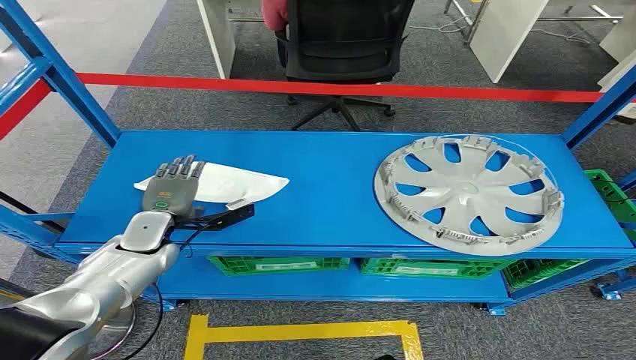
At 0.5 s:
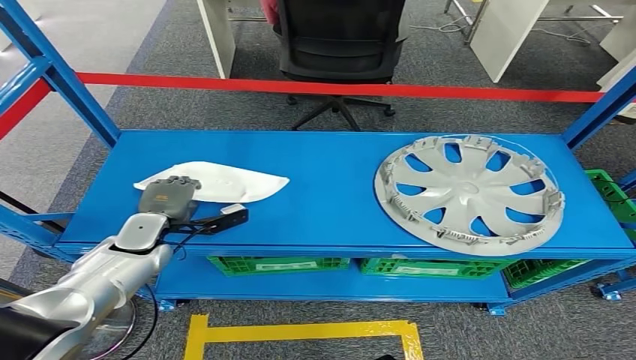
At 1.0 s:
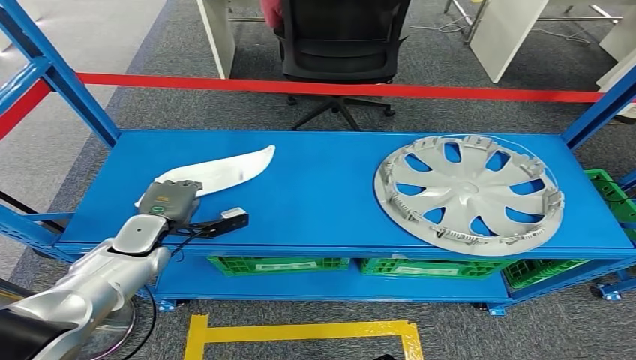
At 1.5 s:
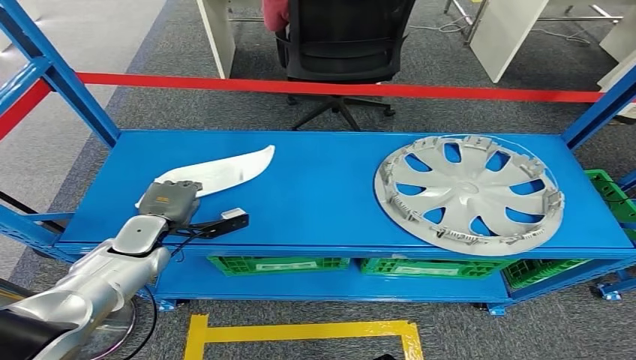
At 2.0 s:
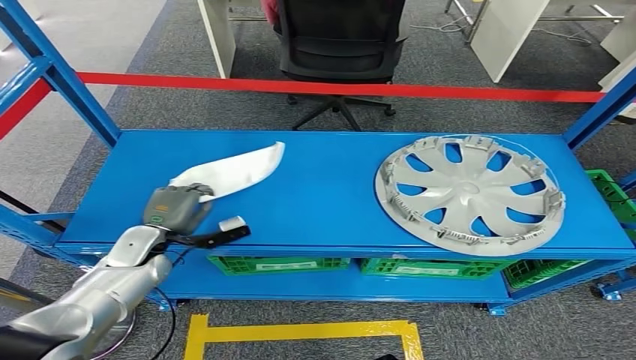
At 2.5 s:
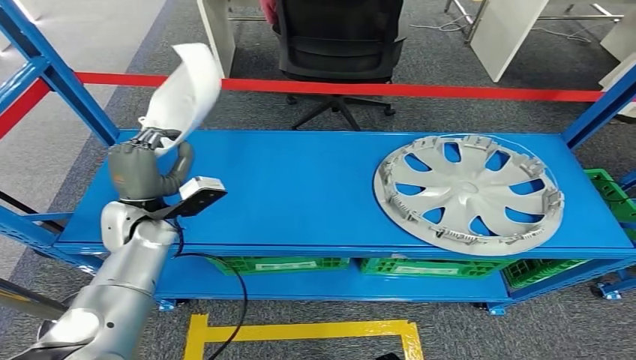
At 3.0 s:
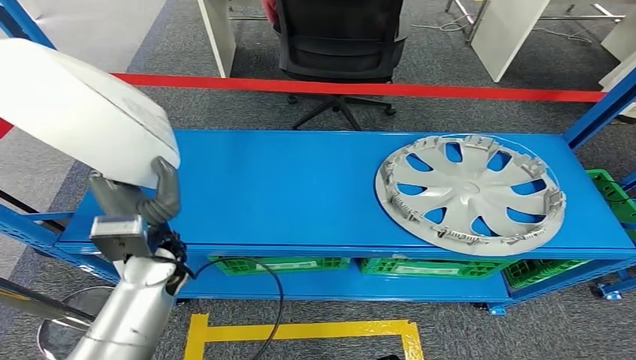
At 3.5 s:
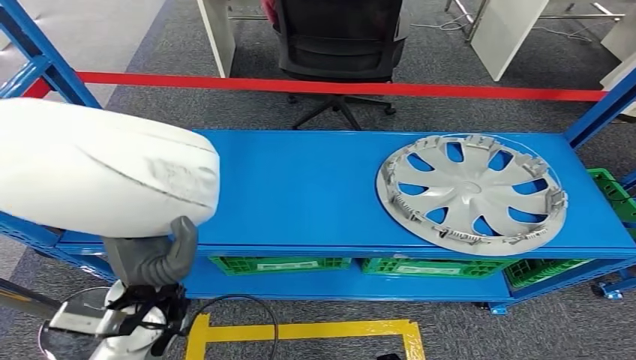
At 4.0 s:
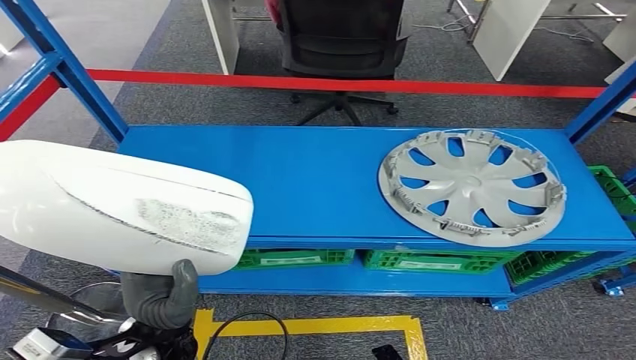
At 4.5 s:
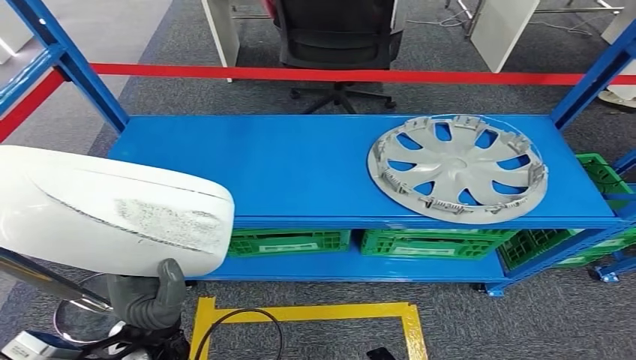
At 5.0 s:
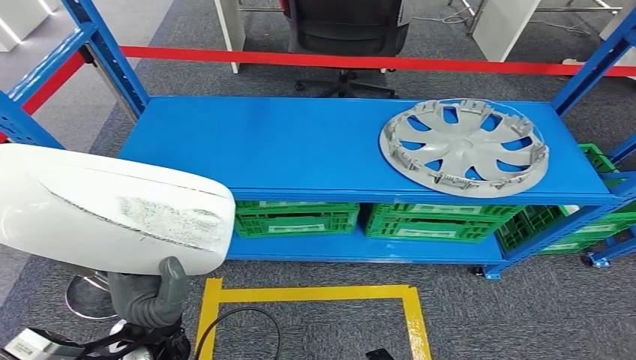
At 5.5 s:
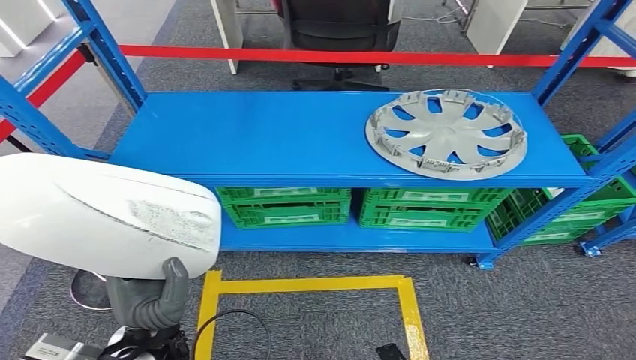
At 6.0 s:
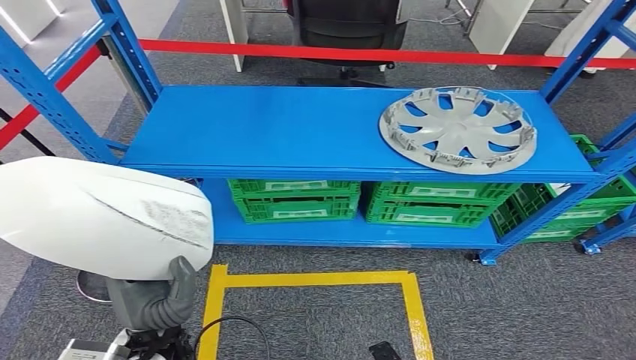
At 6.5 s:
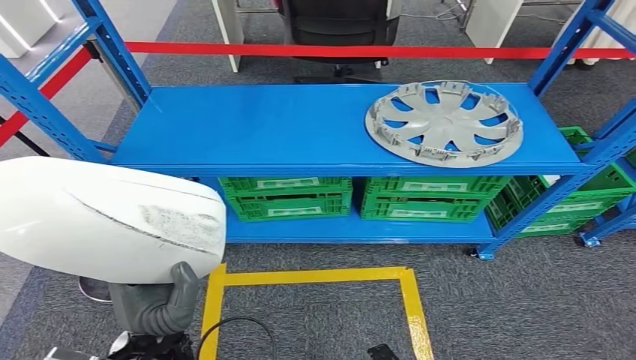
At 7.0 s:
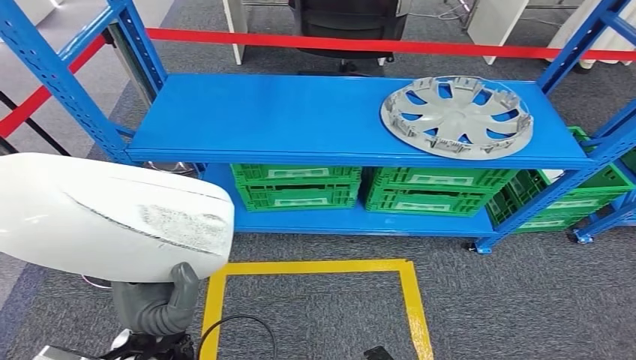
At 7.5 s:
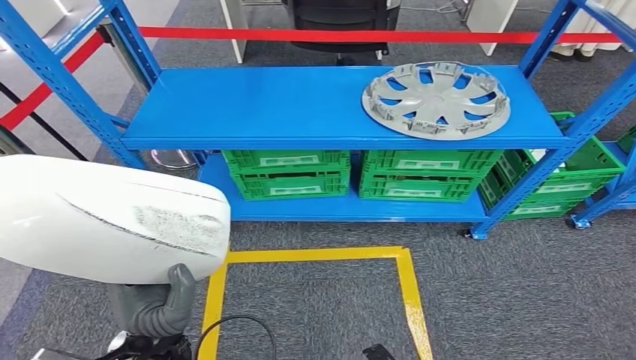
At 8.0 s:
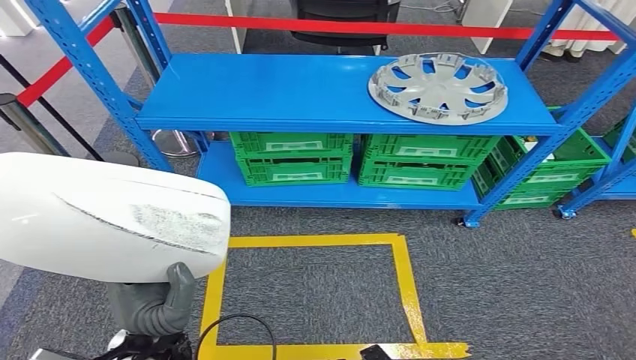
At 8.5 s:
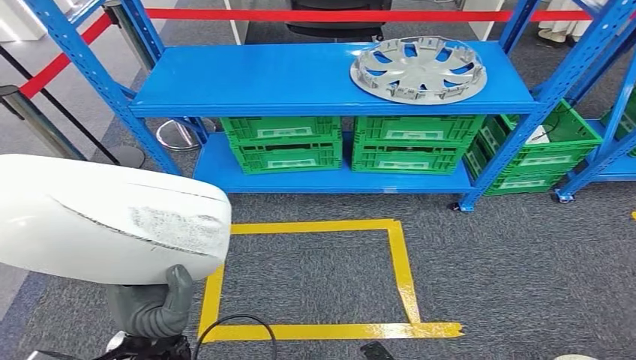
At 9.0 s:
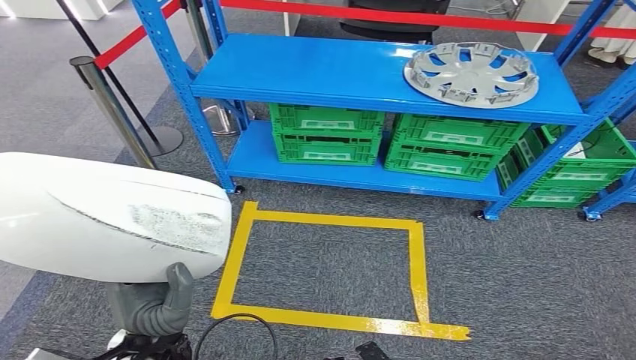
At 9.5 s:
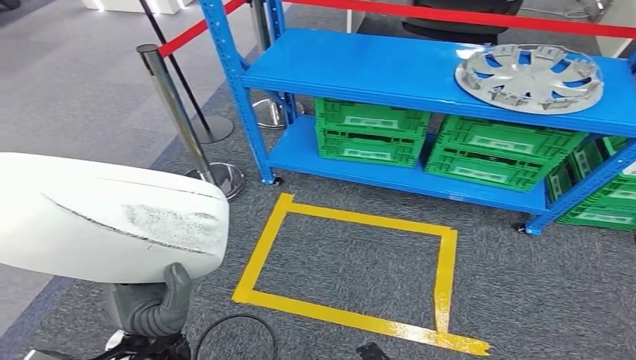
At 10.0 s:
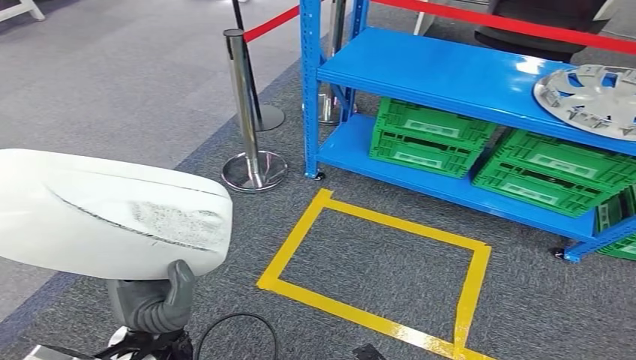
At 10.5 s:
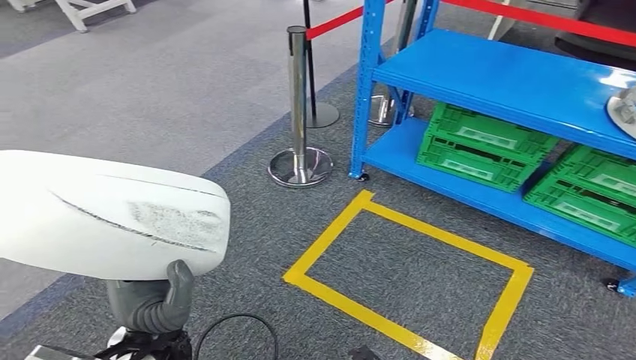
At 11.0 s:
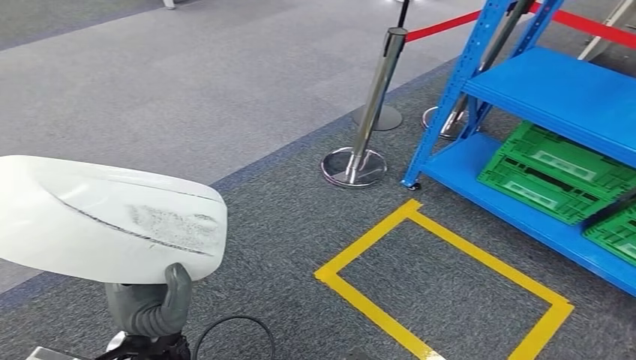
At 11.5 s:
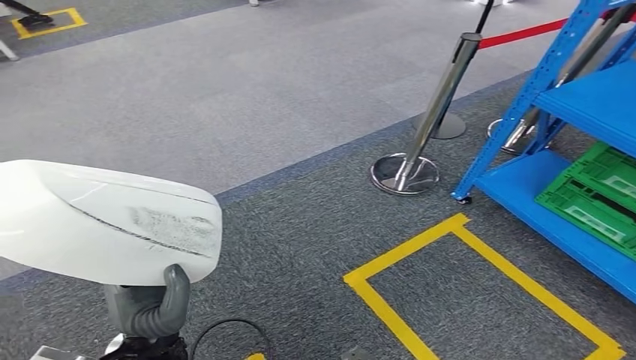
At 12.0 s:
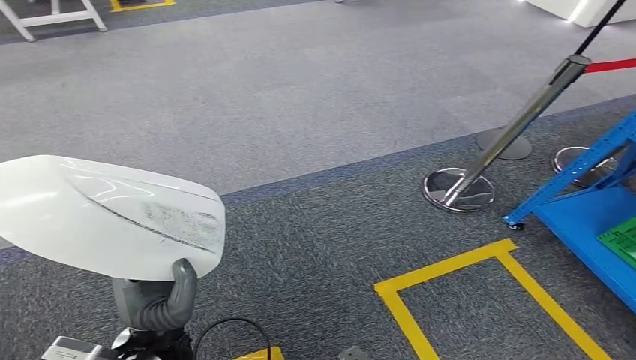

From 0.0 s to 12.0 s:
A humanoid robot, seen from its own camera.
Step, from 0.0 s to 4.0 s: Pick up the small component from the shelf.

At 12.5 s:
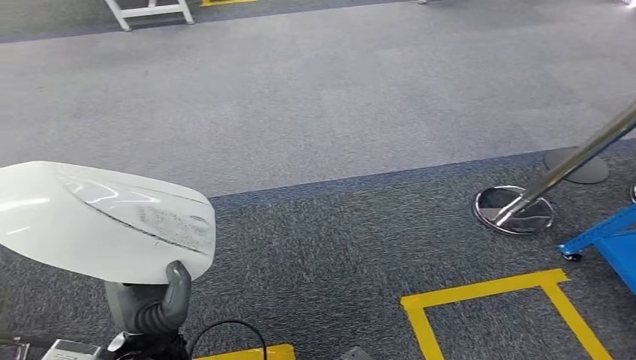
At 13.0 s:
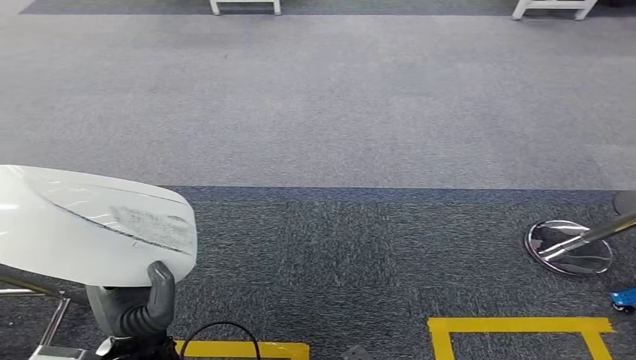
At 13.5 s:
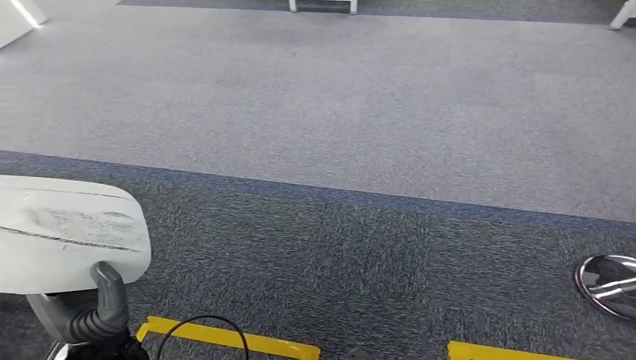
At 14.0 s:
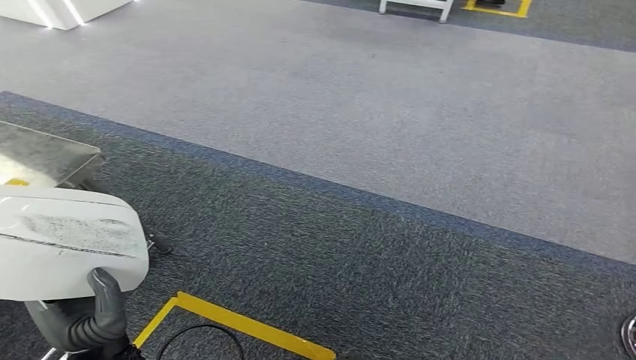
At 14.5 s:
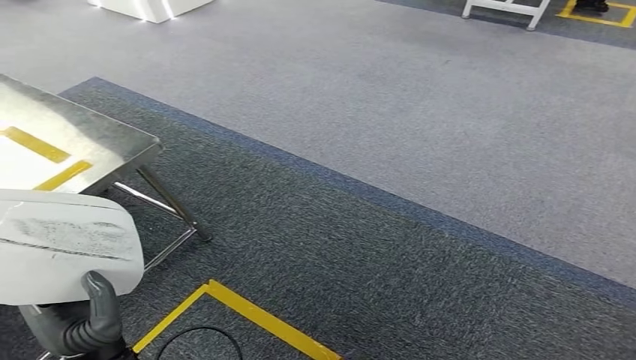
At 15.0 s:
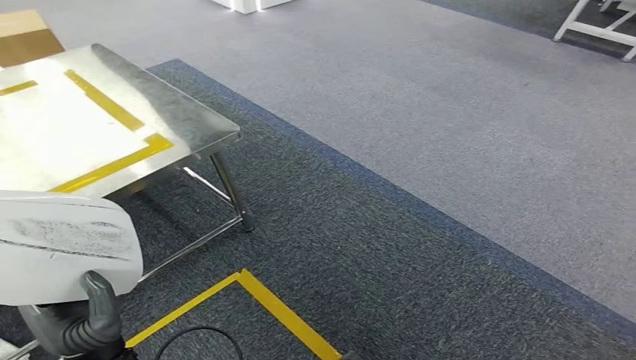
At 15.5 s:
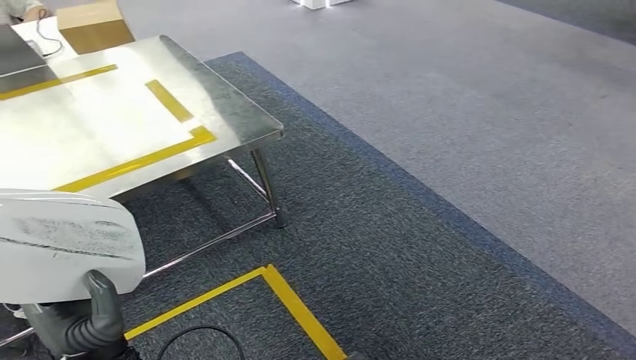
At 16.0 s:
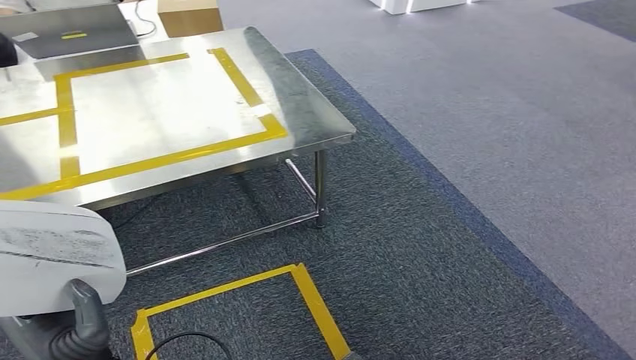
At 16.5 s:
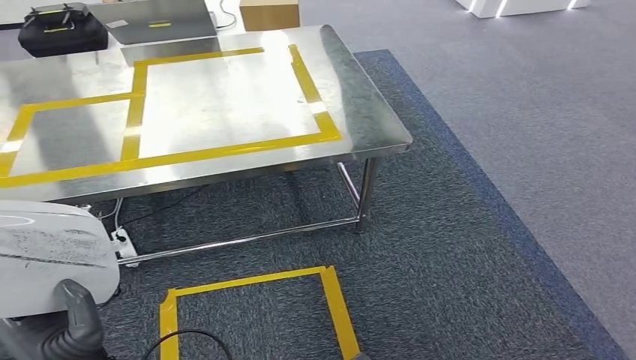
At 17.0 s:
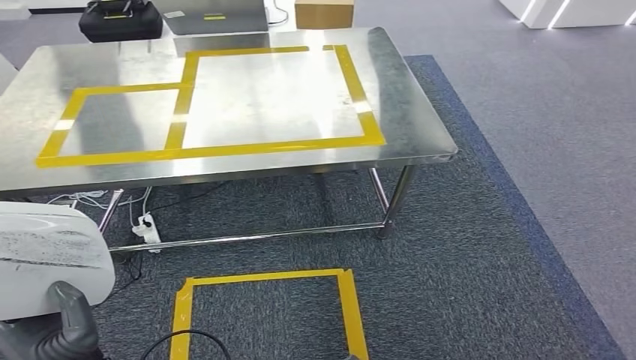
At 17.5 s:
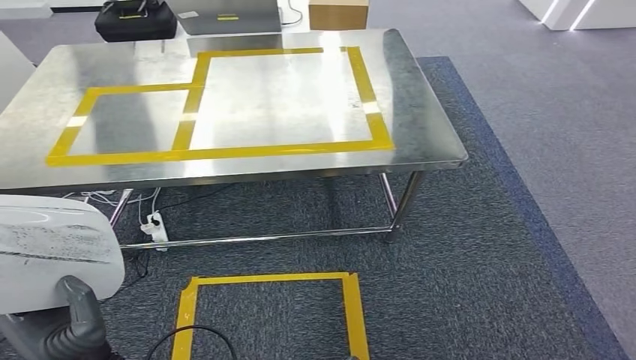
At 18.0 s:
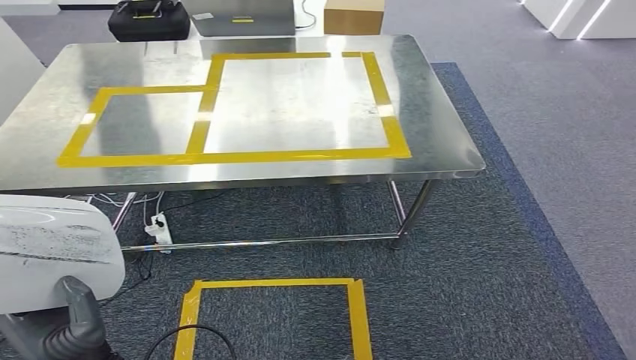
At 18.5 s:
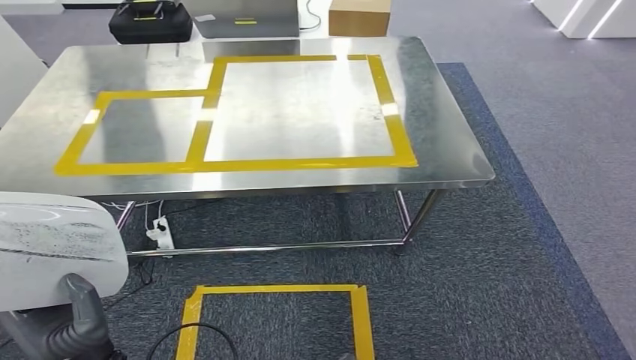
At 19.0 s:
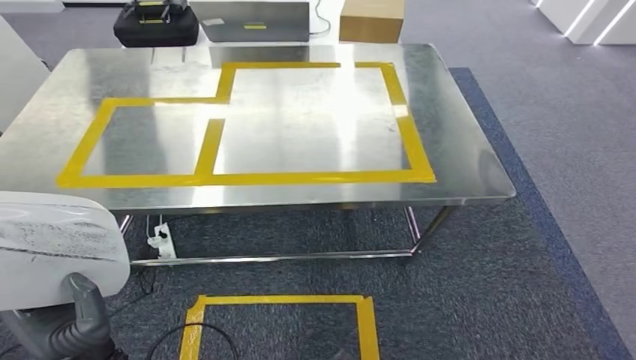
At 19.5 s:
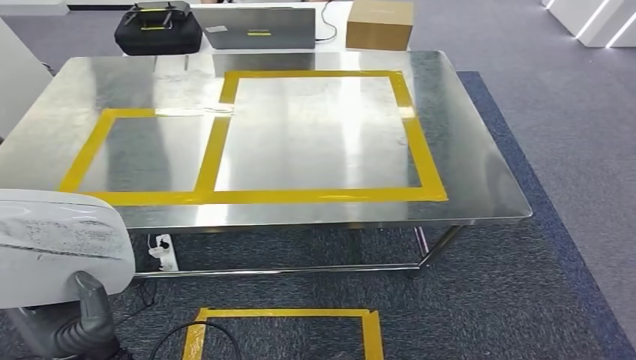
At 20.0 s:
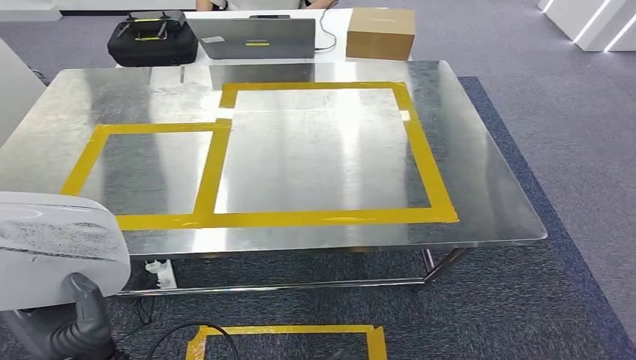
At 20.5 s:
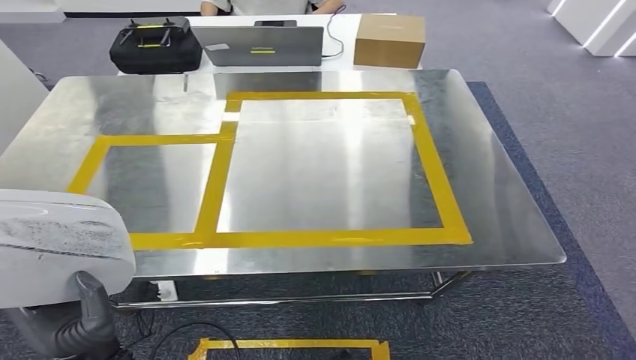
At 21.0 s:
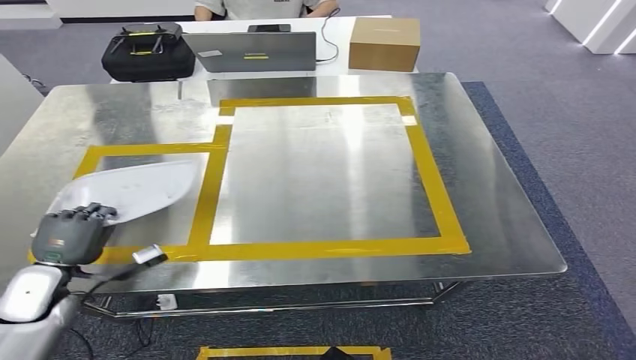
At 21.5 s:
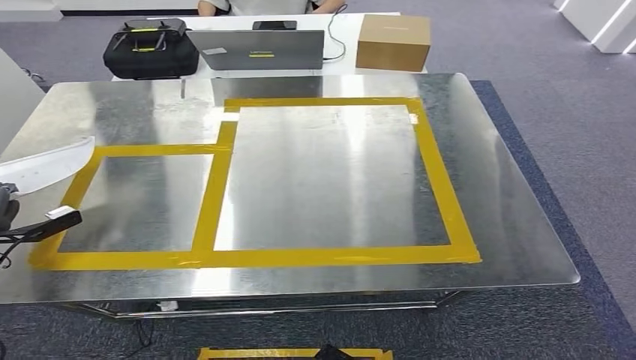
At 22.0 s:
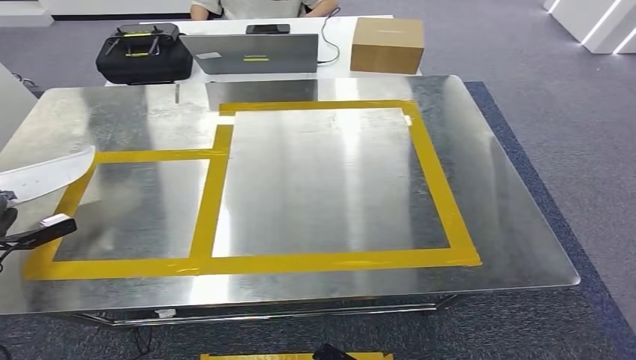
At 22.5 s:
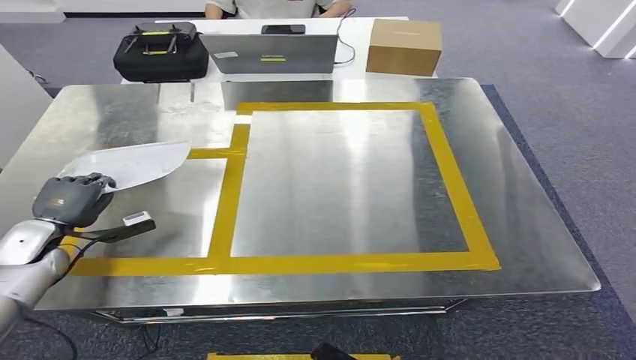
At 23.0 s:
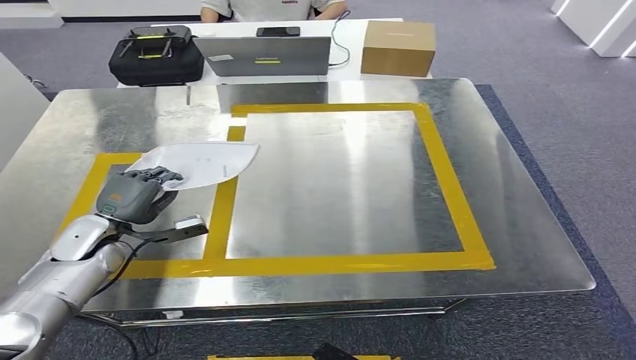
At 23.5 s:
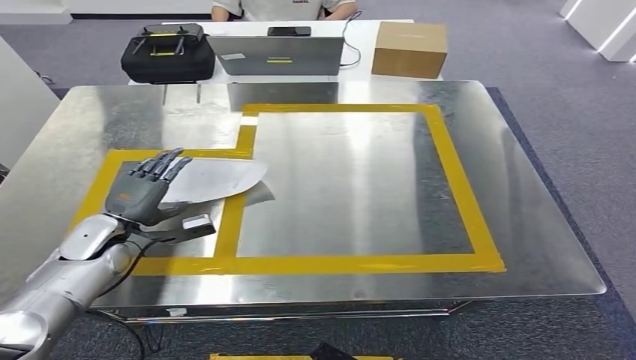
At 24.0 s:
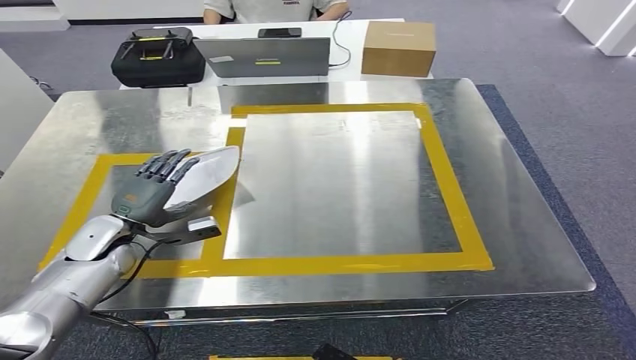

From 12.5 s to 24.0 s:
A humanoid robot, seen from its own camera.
Step, from 12.5 s to 19.5 s: Move the small component to the workbench.
